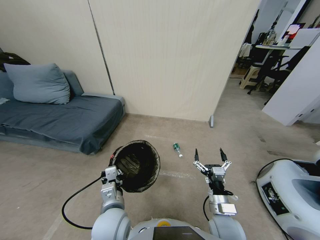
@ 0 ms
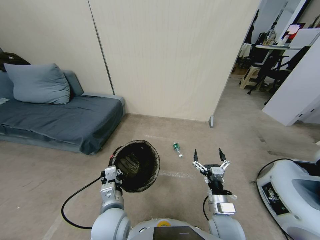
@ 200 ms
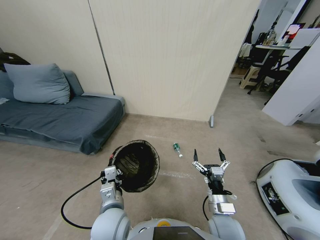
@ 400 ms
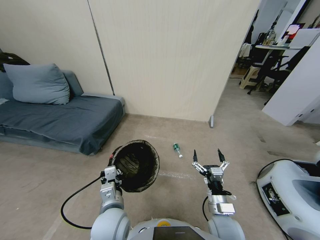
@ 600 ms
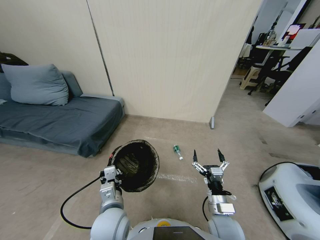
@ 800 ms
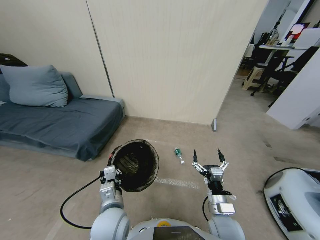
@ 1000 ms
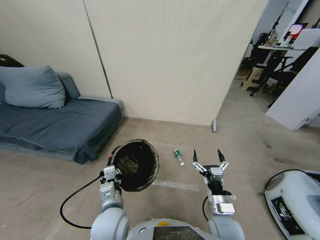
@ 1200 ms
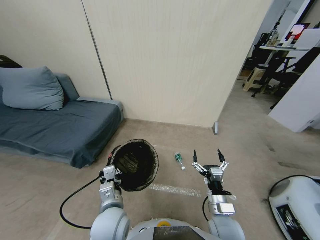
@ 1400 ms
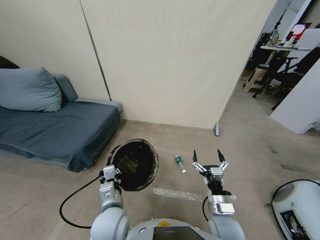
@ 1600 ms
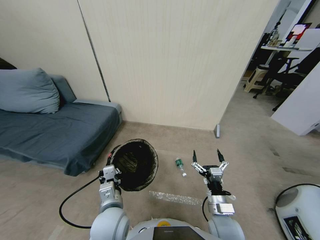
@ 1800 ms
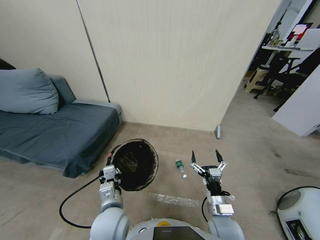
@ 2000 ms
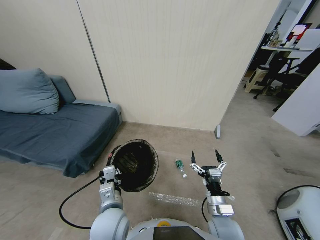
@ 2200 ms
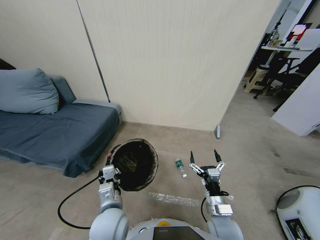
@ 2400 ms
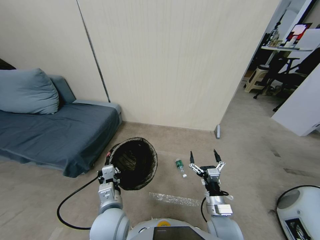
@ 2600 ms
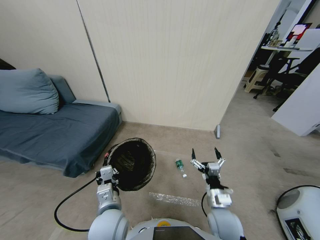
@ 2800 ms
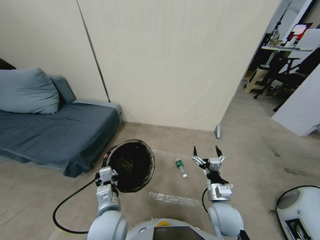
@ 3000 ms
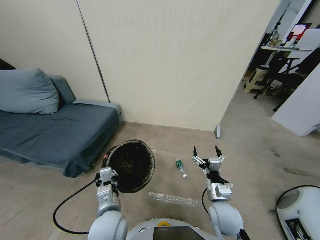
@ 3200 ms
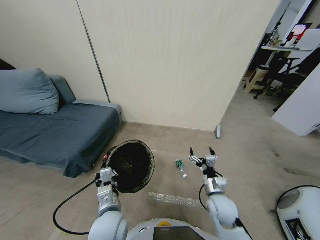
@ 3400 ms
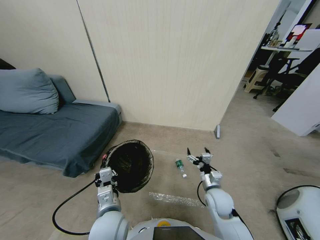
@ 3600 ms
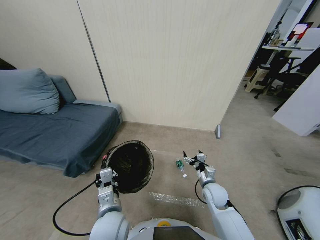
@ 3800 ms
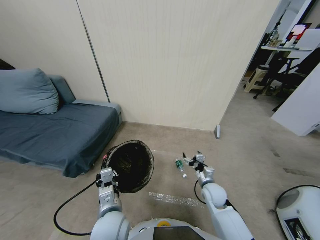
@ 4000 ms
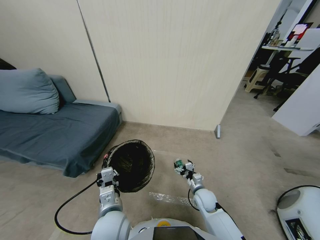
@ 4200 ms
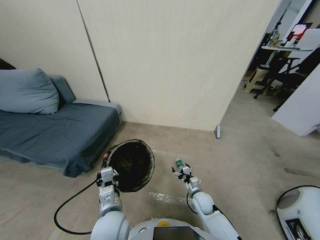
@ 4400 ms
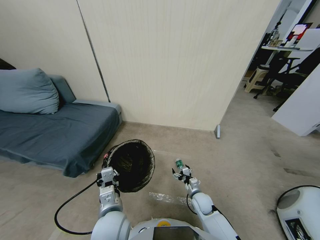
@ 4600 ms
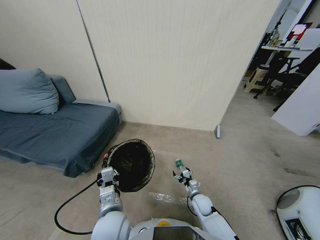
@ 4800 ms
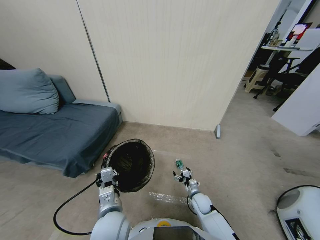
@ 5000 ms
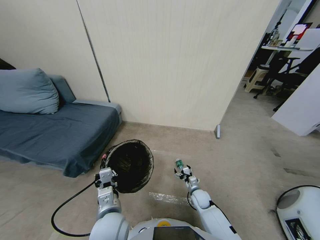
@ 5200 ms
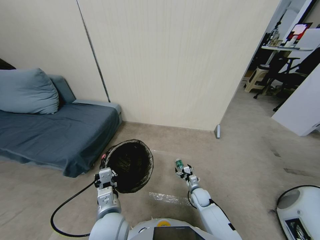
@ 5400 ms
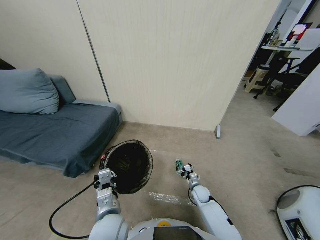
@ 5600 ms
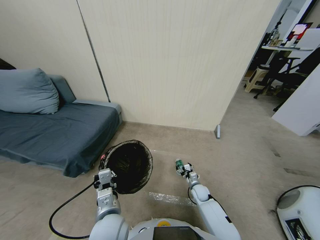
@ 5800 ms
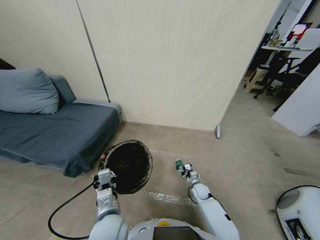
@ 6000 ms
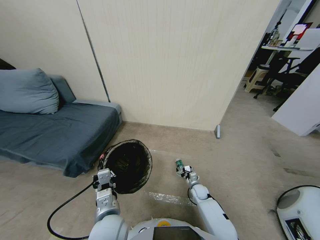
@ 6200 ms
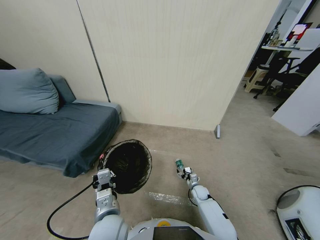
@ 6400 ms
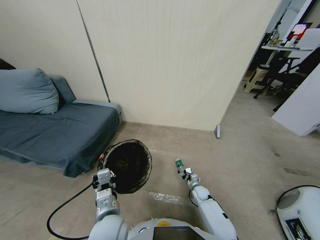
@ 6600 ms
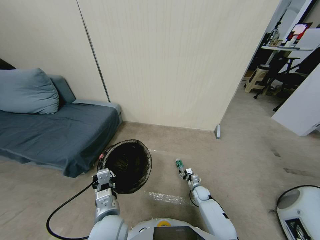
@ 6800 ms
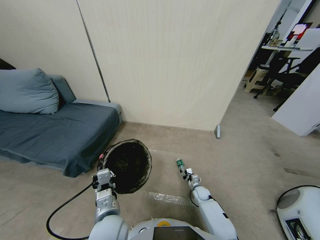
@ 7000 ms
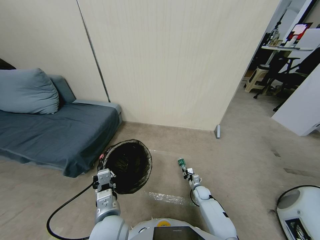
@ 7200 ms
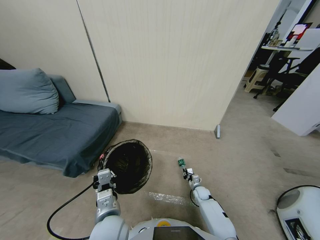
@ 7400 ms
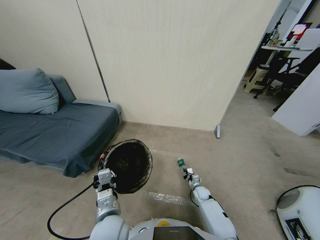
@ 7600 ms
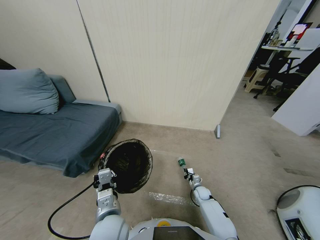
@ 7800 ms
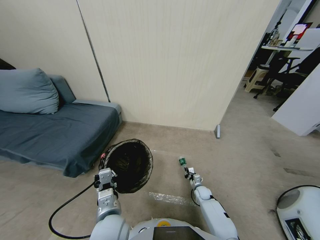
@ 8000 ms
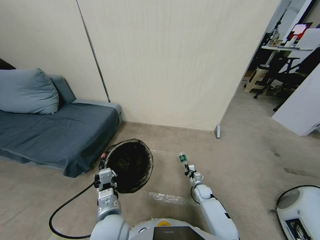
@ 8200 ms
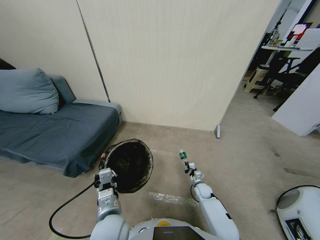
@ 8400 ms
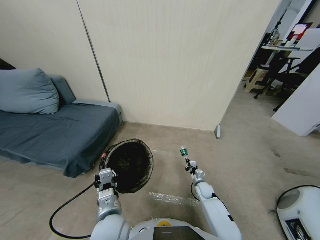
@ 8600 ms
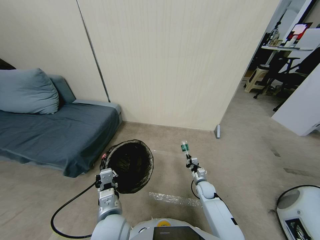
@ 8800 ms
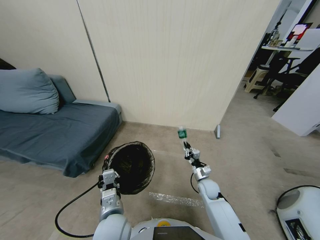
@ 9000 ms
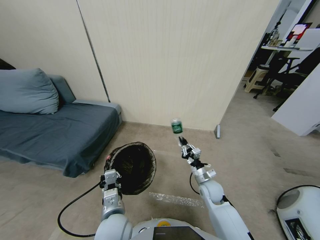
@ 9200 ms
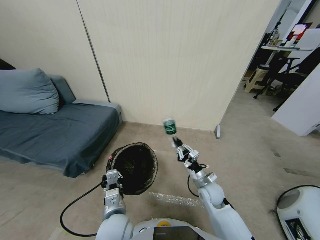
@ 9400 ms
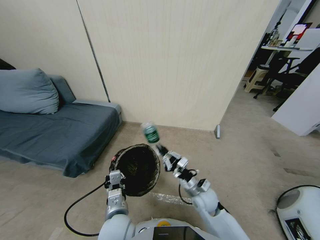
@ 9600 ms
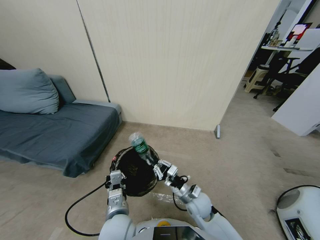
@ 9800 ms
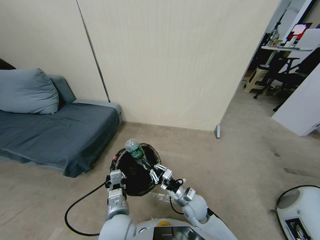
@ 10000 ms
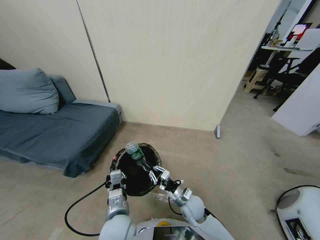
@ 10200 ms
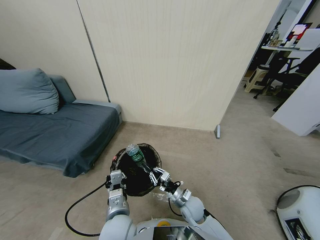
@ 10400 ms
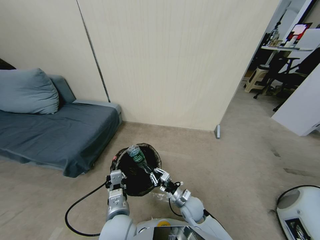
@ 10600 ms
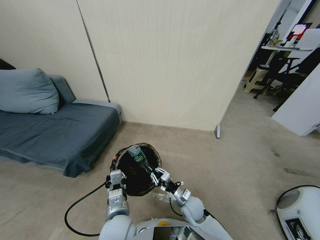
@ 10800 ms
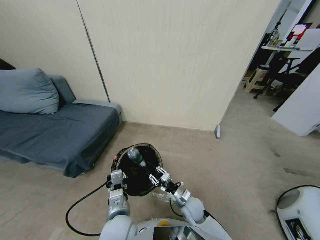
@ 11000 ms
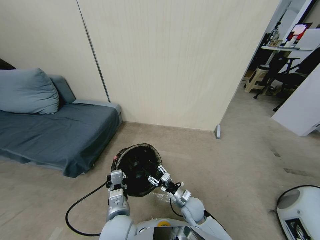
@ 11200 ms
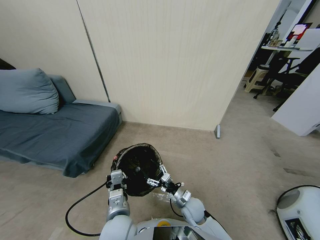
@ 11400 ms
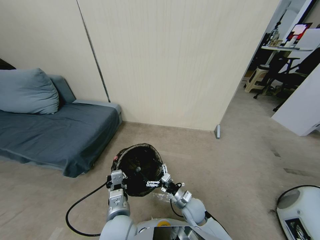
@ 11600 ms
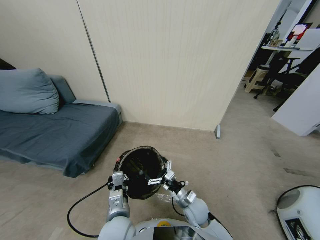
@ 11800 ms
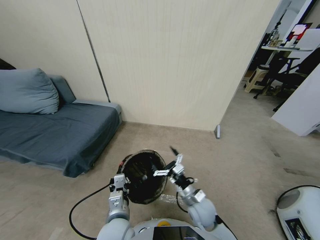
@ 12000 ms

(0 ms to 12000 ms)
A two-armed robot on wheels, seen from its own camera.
Task of the whole recording: Pick up the trash bin, then pick up the garbage from the floor and place it into the trash bin.
1600 ms - 3000 ms: The grippers move only a little.
3000 ms - 4400 ms: The right gripper is displaced downward and forward by about 15 cm.
4400 ms - 6000 ms: The right gripper shifts some 10 cm downward and forward.
6000 ms - 7600 ms: The right gripper closes its fingers.
7600 ms - 9000 ms: The right gripper travels upward by roughly 20 cm.
9000 ms - 10400 ms: The right gripper shifts roughly 10 cm to the left and backward.
10400 ms - 12000 ms: The right gripper shifts about 10 cm upward, and opens.

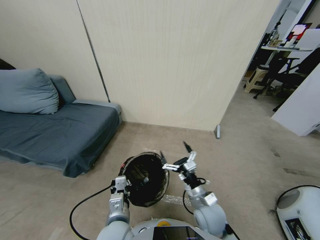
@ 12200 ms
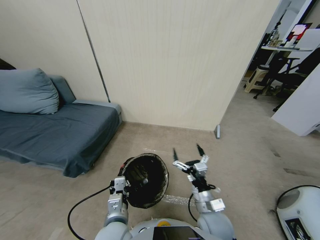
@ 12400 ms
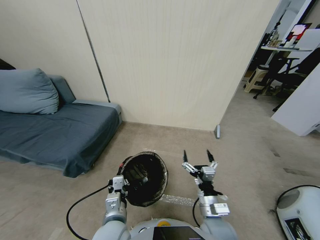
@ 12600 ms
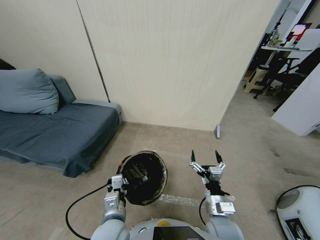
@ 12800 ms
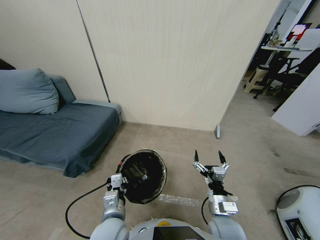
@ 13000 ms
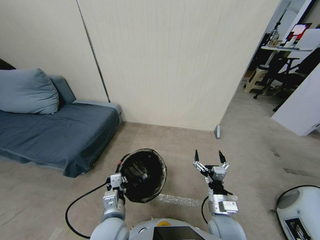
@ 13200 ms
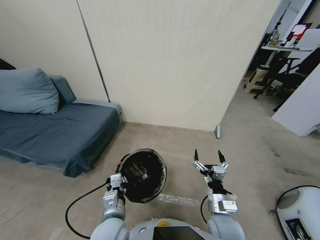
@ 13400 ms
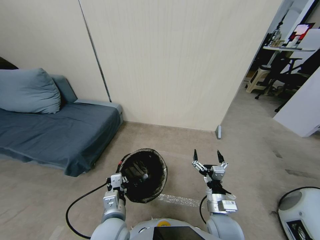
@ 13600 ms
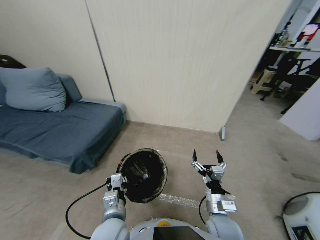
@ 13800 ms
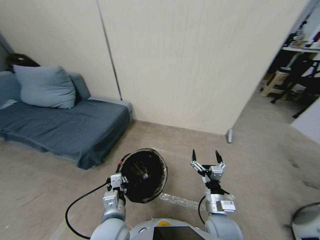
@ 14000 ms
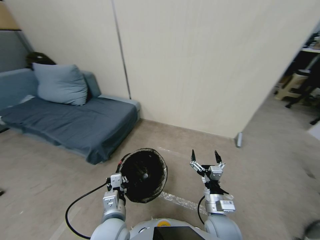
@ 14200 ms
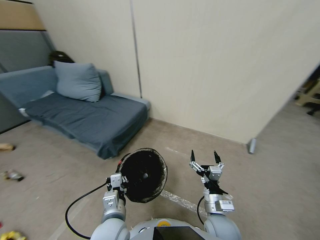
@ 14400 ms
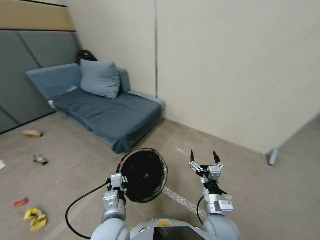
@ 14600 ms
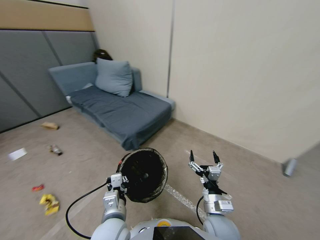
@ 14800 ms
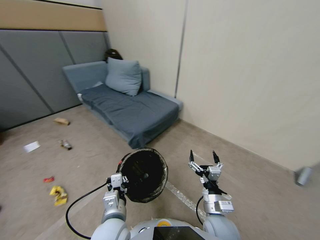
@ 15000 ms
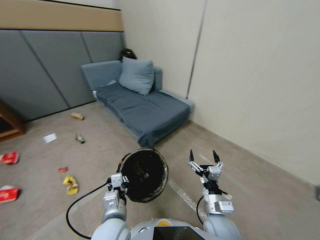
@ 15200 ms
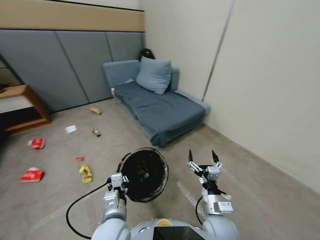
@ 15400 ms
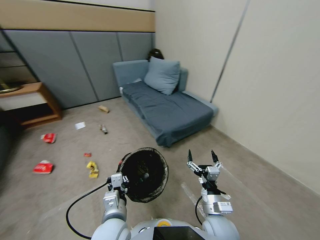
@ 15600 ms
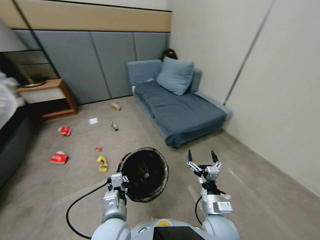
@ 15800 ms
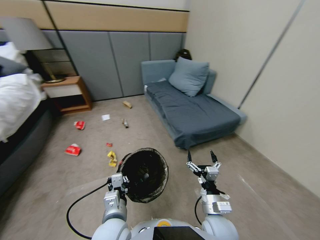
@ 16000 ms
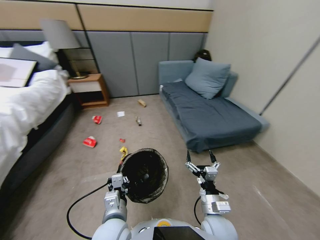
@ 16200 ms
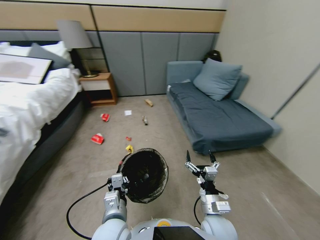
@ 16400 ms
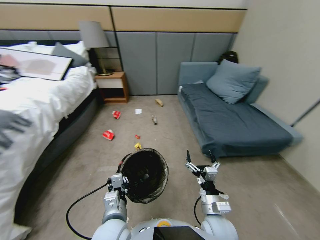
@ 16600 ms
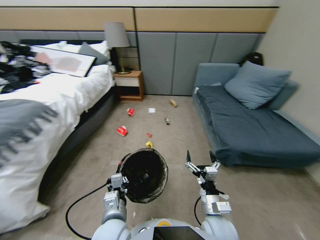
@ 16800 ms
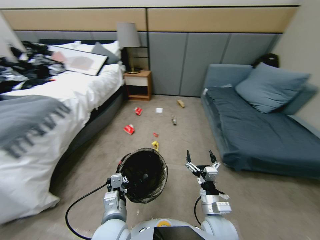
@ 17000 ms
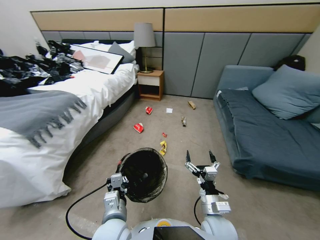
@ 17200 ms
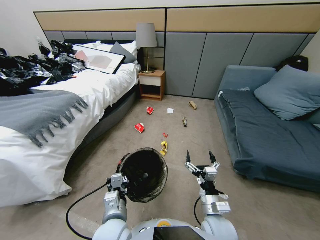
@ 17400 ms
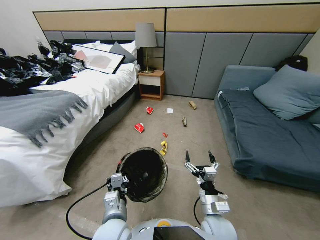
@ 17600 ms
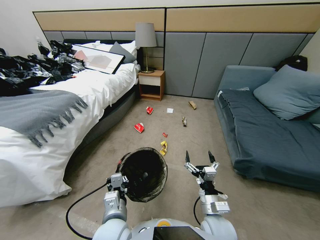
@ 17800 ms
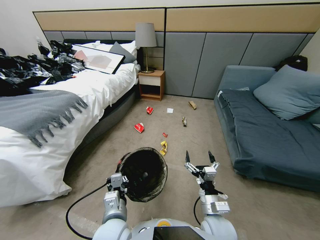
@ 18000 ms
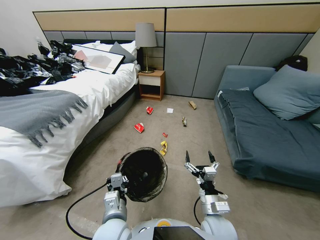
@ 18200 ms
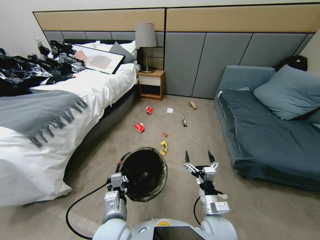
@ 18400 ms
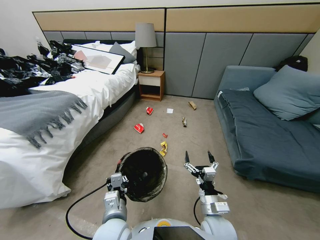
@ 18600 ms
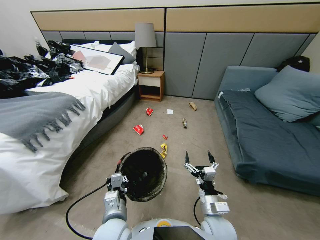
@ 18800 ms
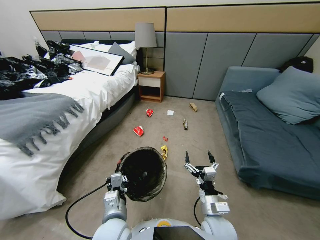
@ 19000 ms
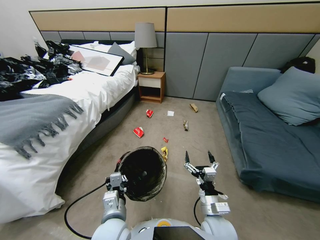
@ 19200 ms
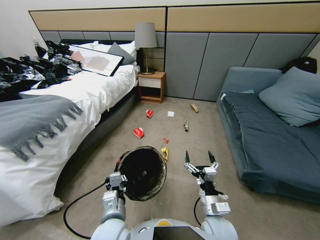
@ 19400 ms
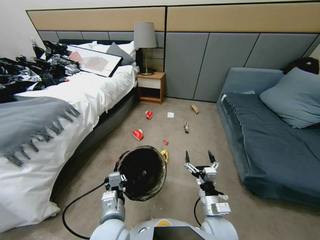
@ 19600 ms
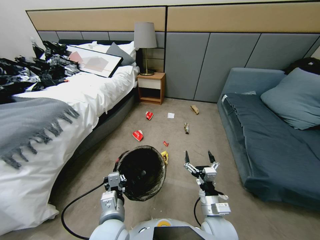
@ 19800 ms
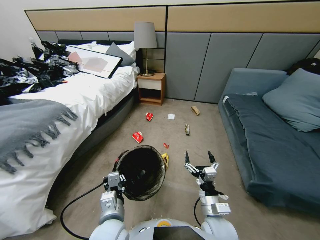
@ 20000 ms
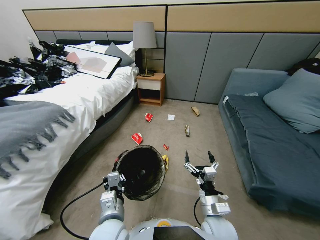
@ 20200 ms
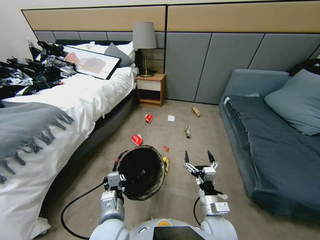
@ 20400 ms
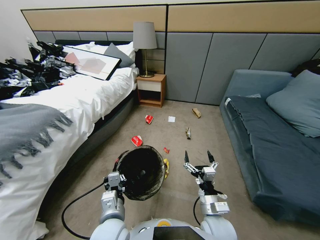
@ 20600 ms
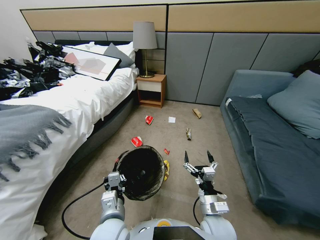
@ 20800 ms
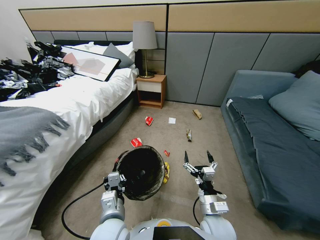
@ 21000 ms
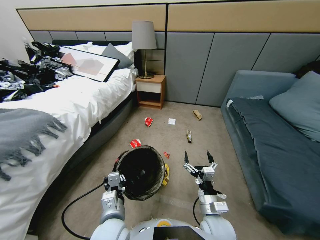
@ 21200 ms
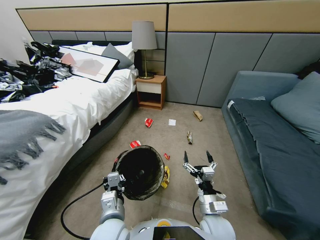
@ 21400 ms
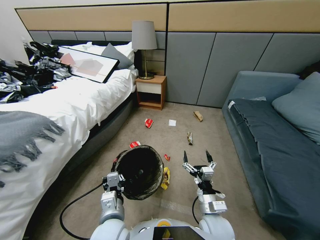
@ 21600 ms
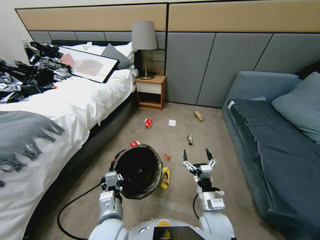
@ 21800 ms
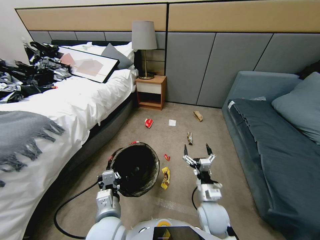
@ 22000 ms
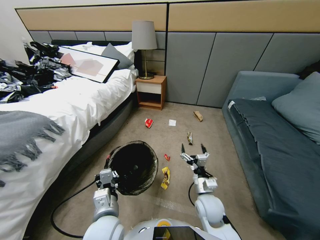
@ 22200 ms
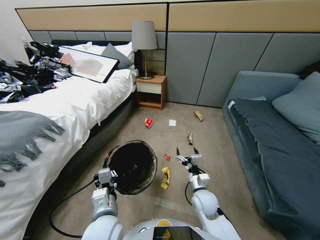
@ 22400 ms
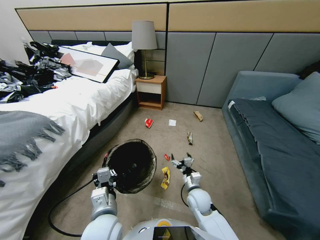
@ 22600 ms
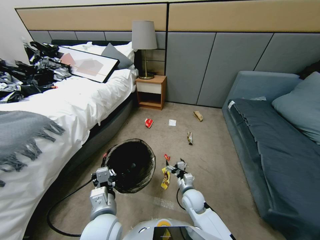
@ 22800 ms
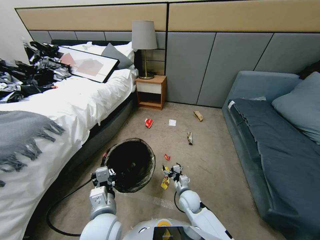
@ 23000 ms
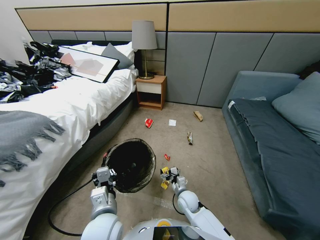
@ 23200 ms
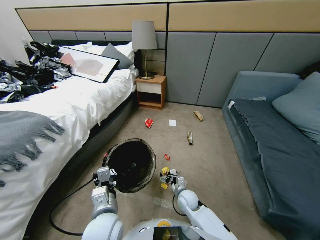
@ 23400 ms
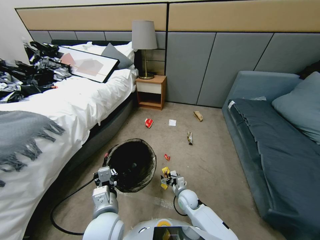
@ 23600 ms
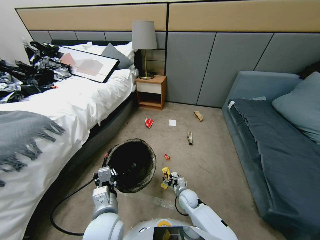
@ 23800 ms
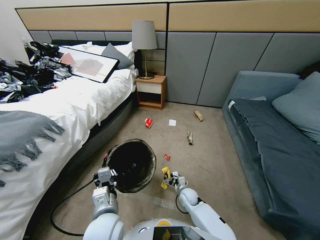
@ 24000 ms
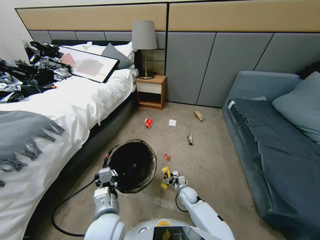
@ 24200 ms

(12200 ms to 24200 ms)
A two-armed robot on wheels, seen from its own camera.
Task of the whole recording: Pick up the trash bin, then pick up the garbage from the floor and place it into the trash bin.
21200 ms - 22600 ms: The right gripper goes some 15 cm forward and downward.
22600 ms - 24200 ms: The right gripper moves downward, roughly 10 cm.
